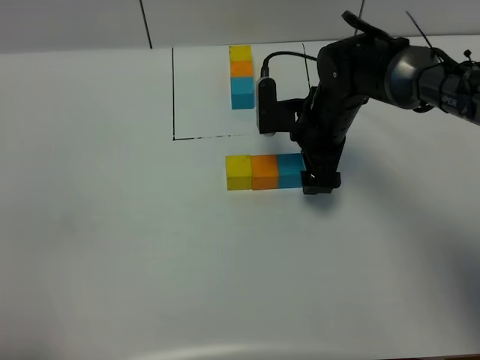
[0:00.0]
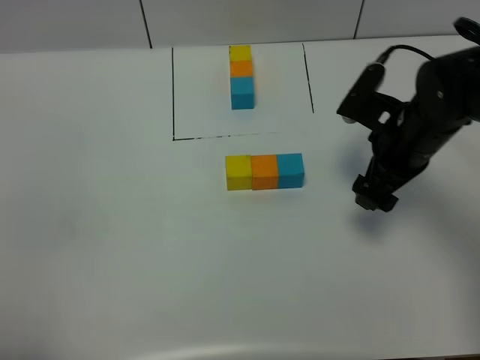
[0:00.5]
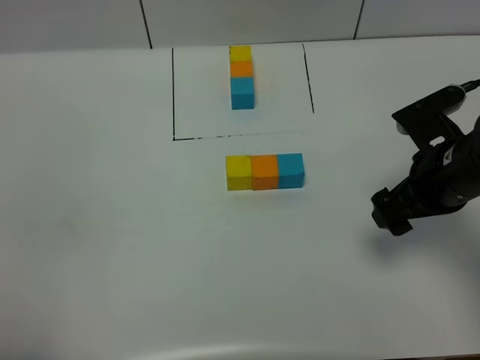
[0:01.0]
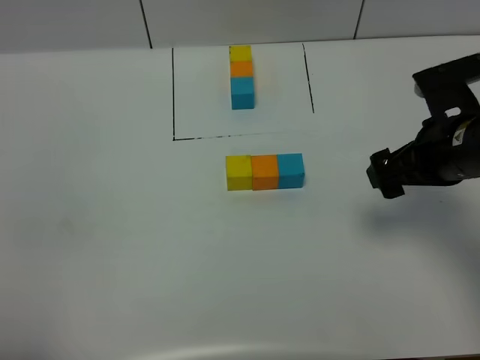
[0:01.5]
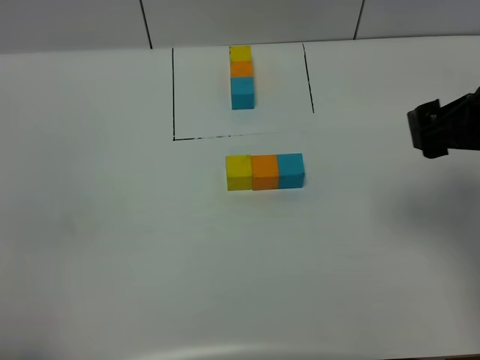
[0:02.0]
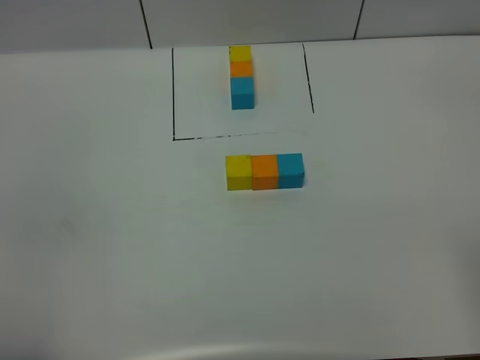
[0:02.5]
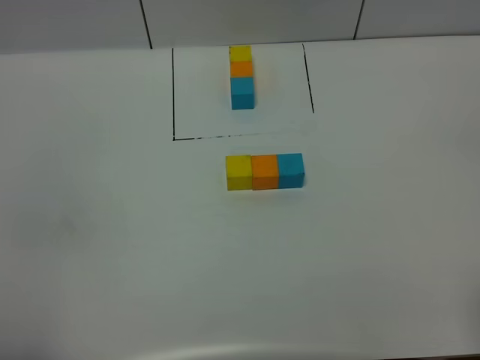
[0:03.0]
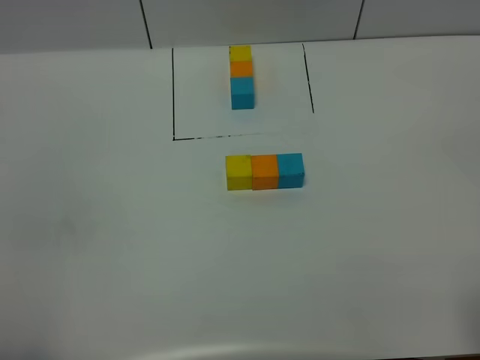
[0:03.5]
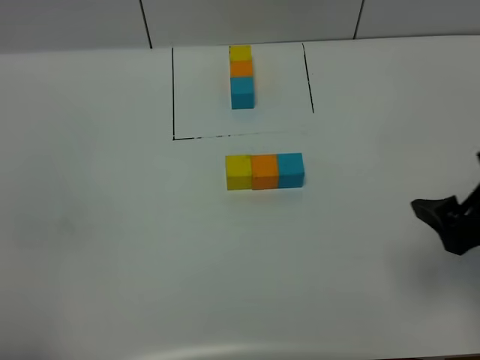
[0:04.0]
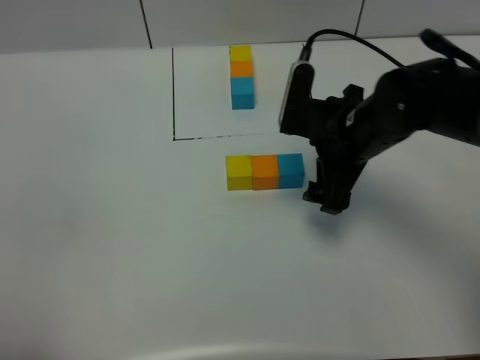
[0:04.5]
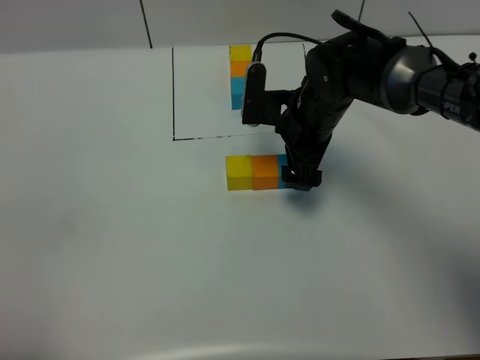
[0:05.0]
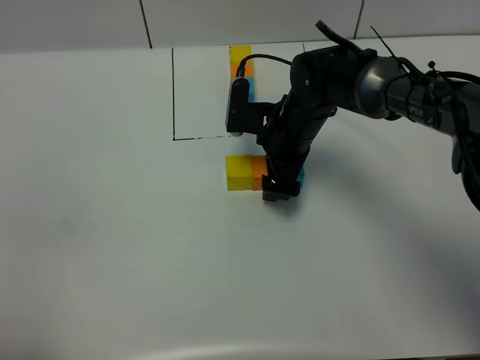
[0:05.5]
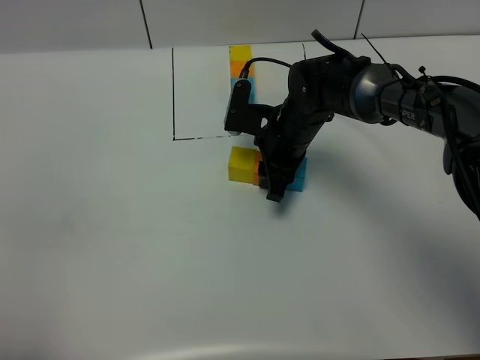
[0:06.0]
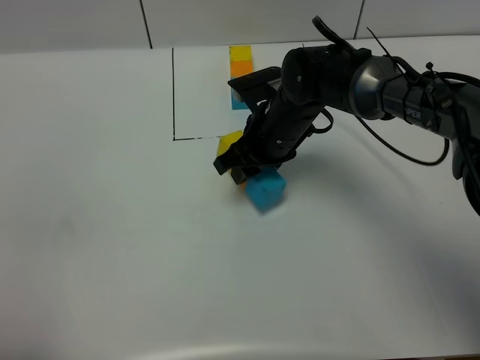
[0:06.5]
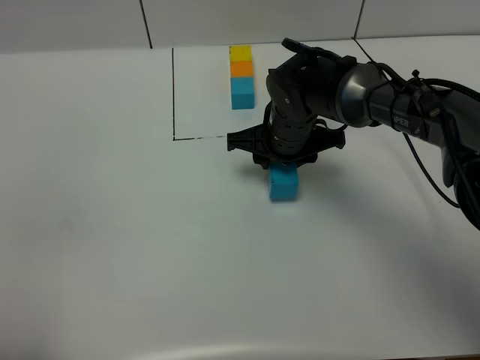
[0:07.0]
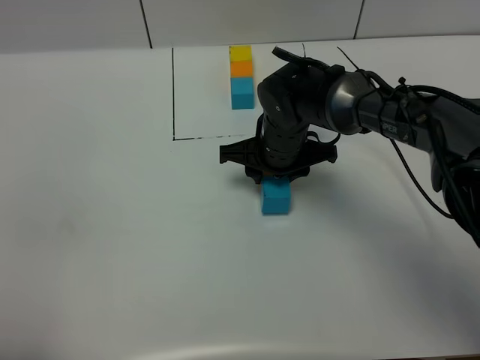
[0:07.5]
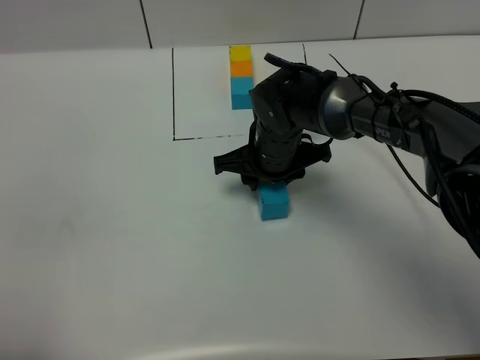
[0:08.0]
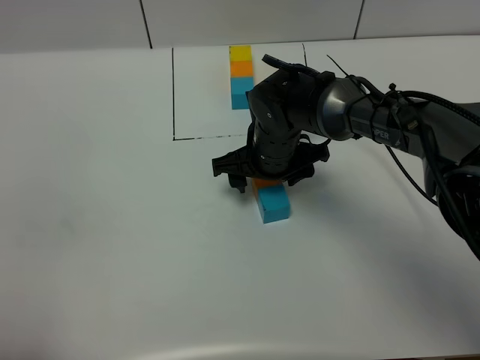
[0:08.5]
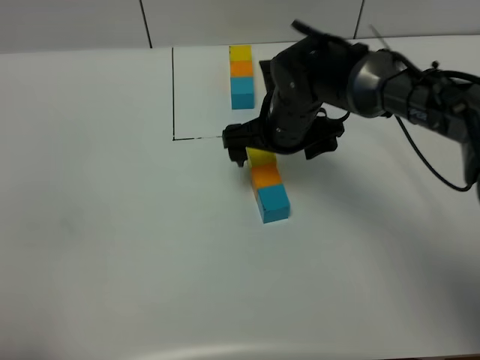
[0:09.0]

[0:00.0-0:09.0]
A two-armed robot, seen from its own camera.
Task of the whole recording: According to the building block template in front, assemble the scattered blocks together.
Step, 0:00.0 to 0:08.5: Adjust the pose of the building blocks.
0:00.0 to 0:02.0: The right gripper shifts approximately 25 cm backward, upward and to the right.
0:02.0 to 0:04.5: The right gripper moves to the left and downward, some 15 cm, and reaches about 20 cm backward, then returns.
0:04.5 to 0:07.0: The right gripper moves to the left, forward and downward, roughly 10 cm, and closes.
0:07.0 to 0:09.0: The right gripper opens.

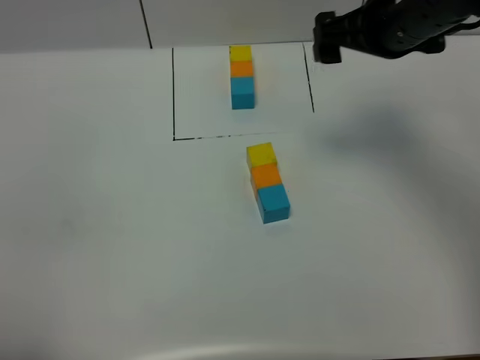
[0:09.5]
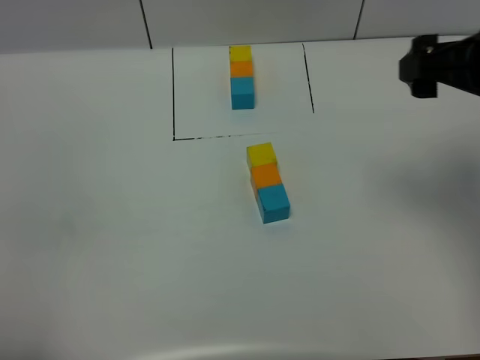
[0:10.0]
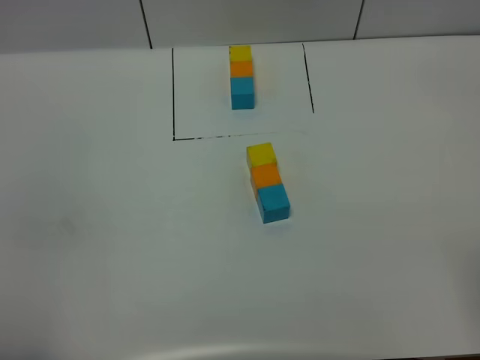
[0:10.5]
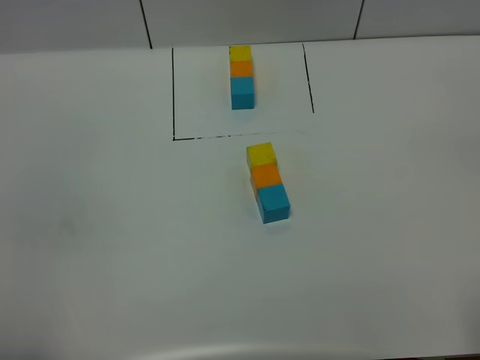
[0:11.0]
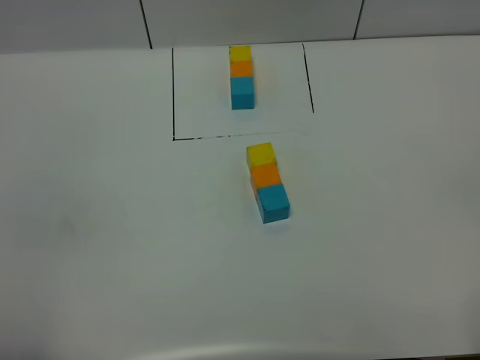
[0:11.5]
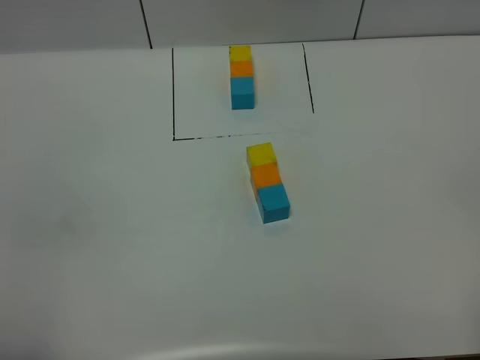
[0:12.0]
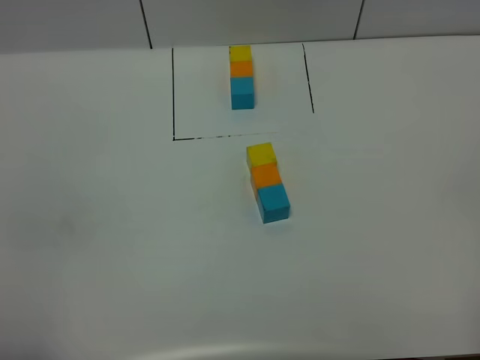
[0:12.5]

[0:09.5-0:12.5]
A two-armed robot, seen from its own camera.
Task of the whole recording: According to the building block template in front, assemble the scattered blocks together.
0:09.5 to 0:11.0: The right gripper is displaced backward and to the right by about 35 cm.
